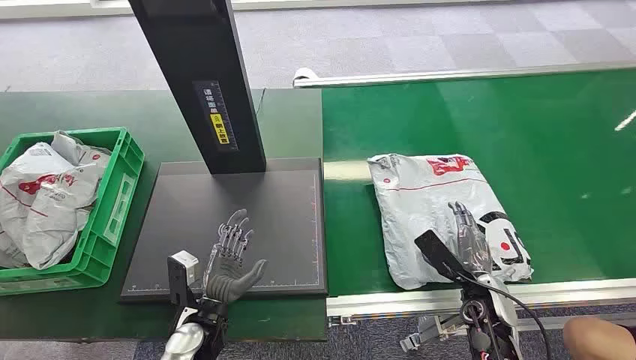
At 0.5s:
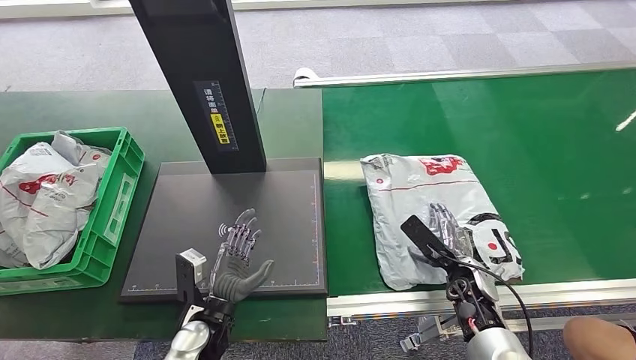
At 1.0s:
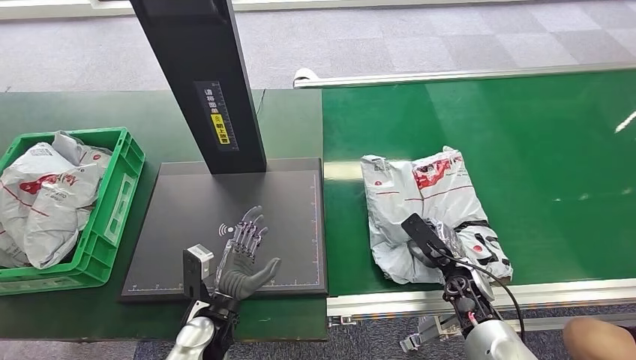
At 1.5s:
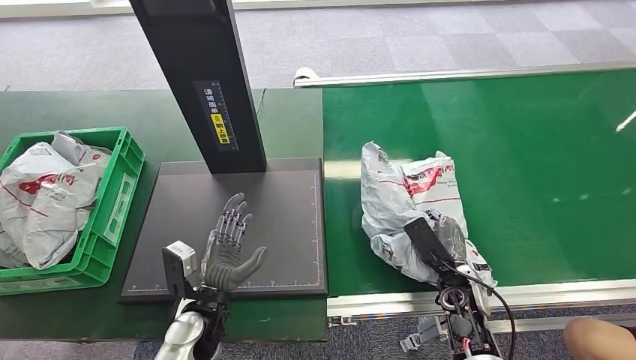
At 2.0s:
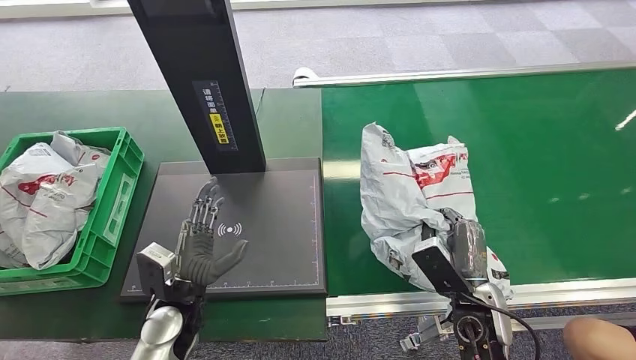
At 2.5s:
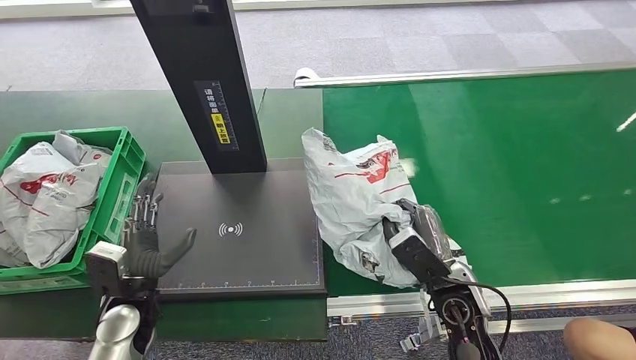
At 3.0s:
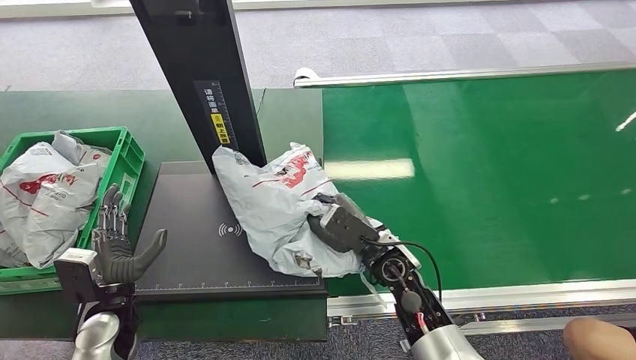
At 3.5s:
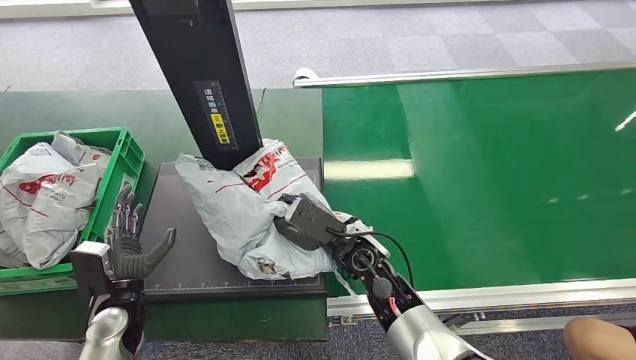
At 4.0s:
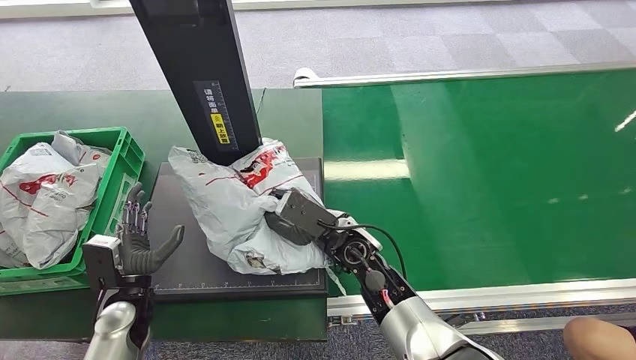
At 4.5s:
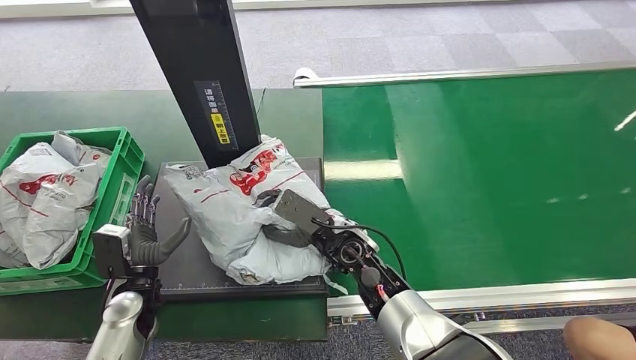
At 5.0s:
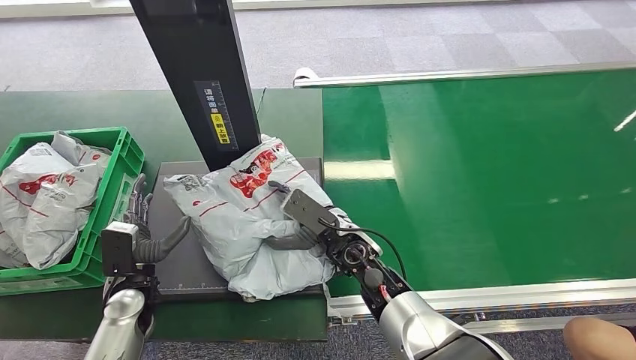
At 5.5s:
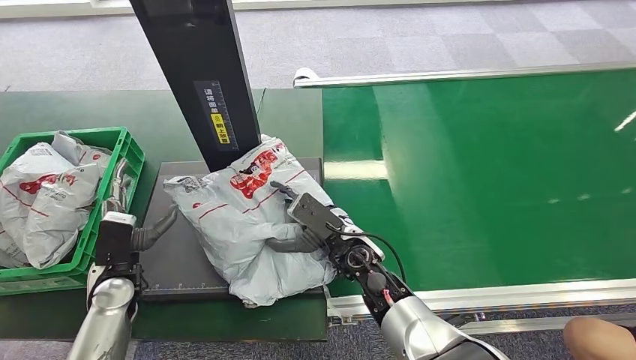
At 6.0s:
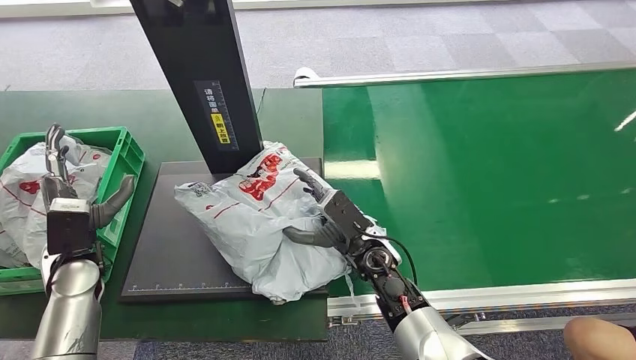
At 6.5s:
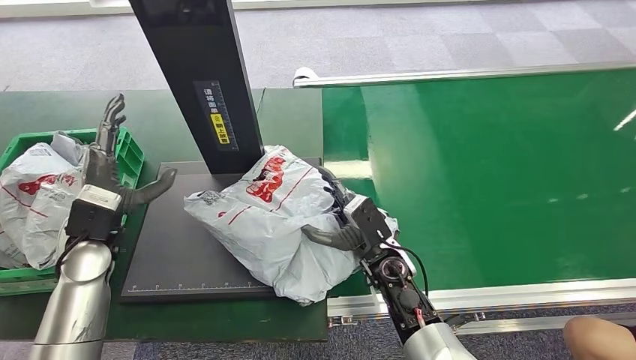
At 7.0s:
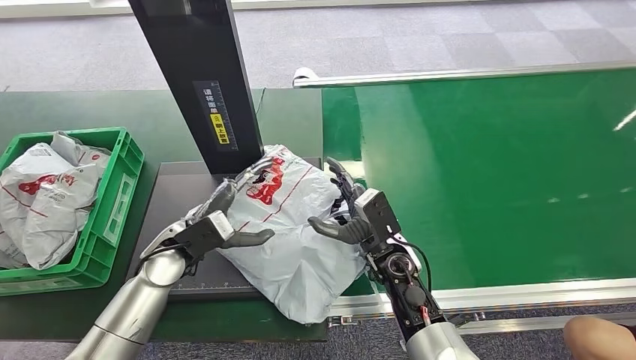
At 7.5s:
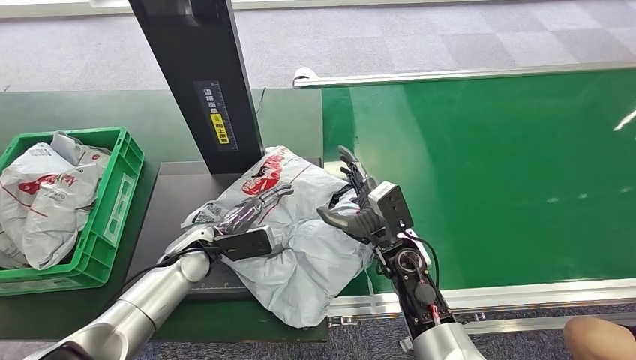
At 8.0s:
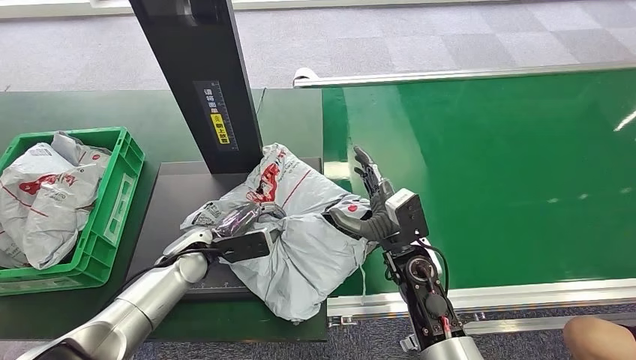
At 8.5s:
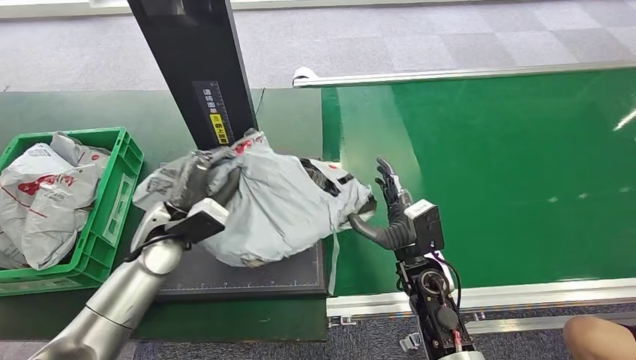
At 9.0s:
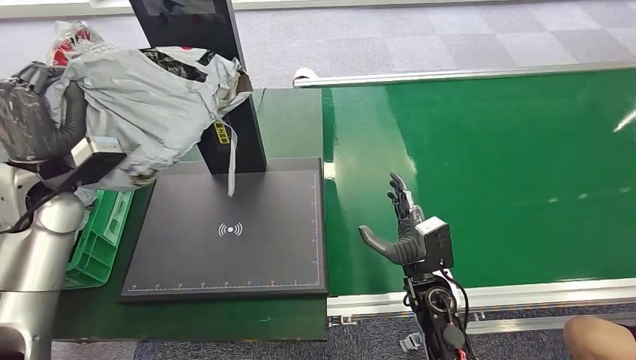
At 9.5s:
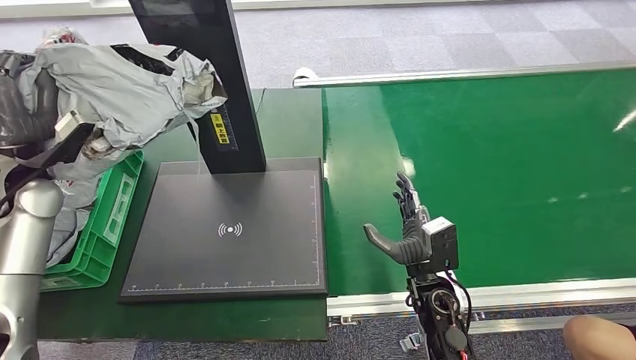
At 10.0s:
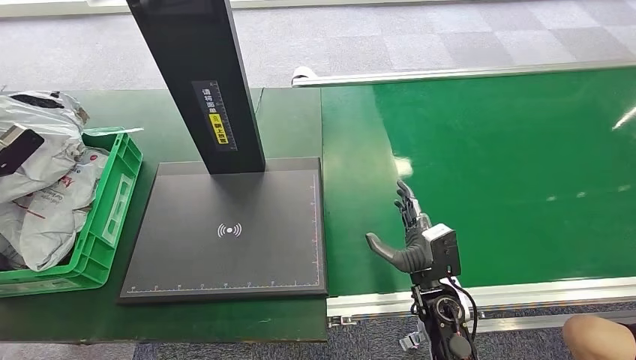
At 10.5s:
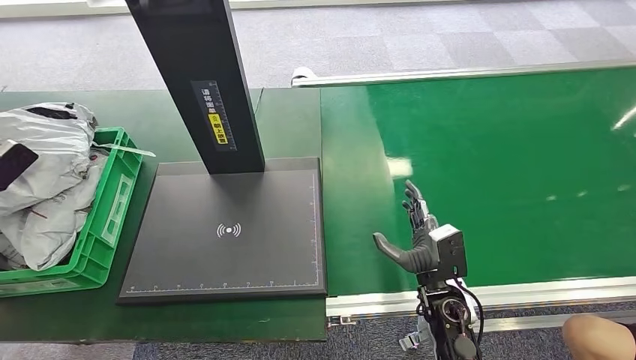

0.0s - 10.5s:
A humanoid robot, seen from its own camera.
Task of the whole recording: Weigh the package on the weighing device and place it in the left basket.
Step, 0.0s - 2.0s: Pick up the package from the conveyor belt.
Step, 2.5s - 6.0s: Place the package onto the inbound machine.
Step, 6.5s - 9.0s: Pick up the package from the inbound machine.
Step, 9.5s - 10.5s: Place the package into the parcel locker.

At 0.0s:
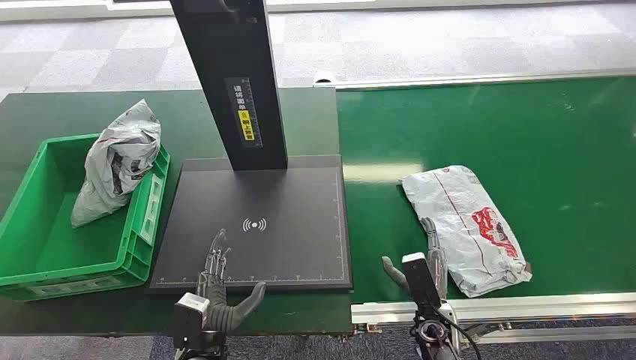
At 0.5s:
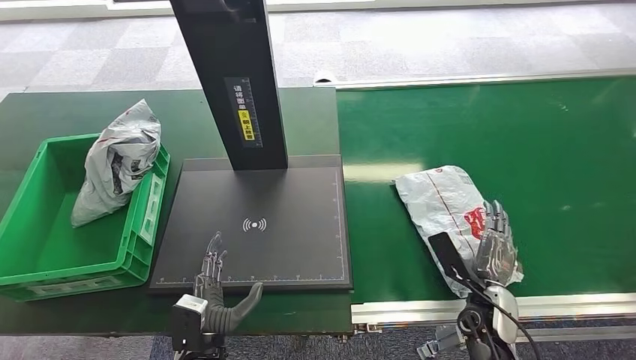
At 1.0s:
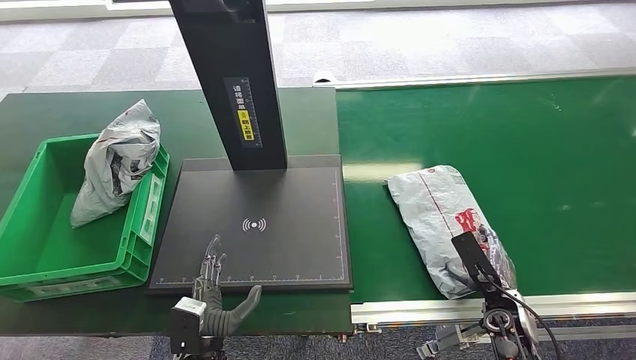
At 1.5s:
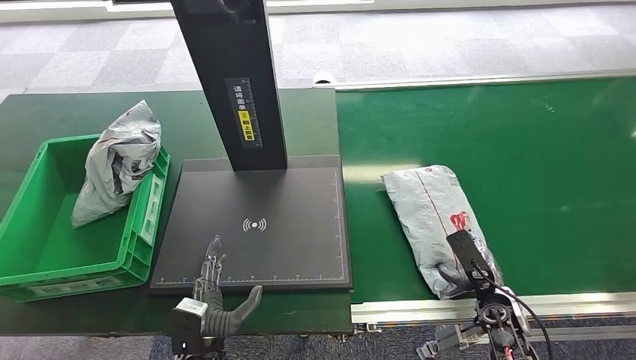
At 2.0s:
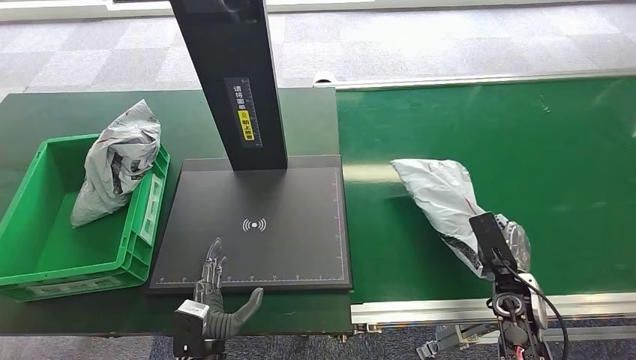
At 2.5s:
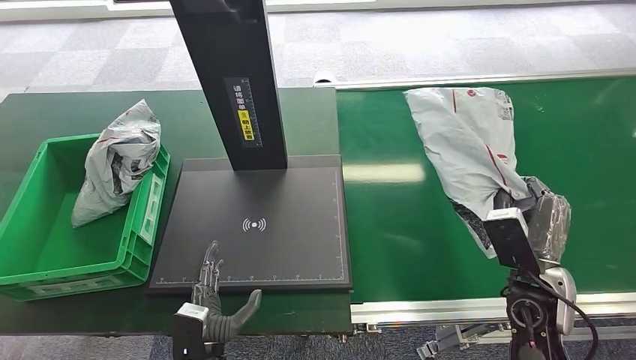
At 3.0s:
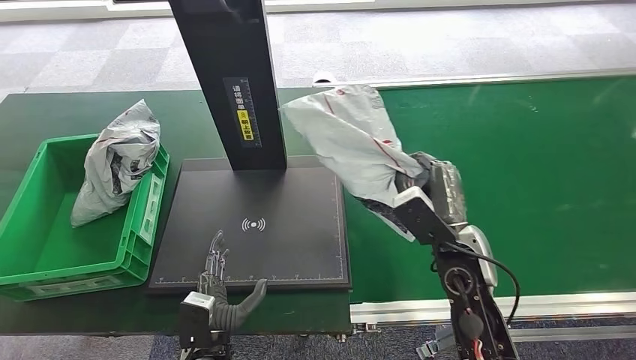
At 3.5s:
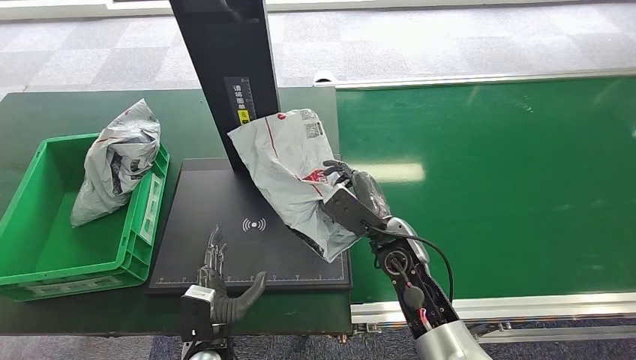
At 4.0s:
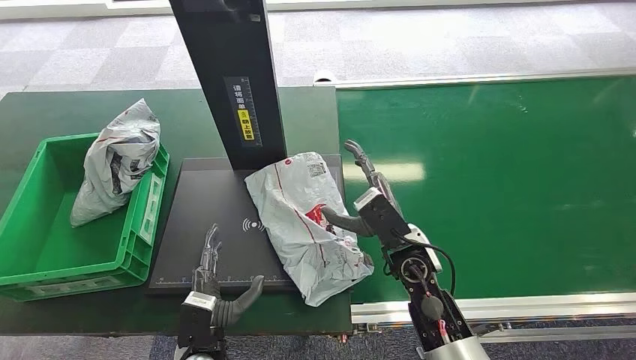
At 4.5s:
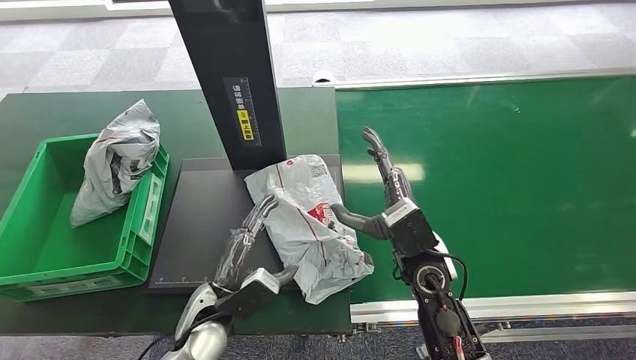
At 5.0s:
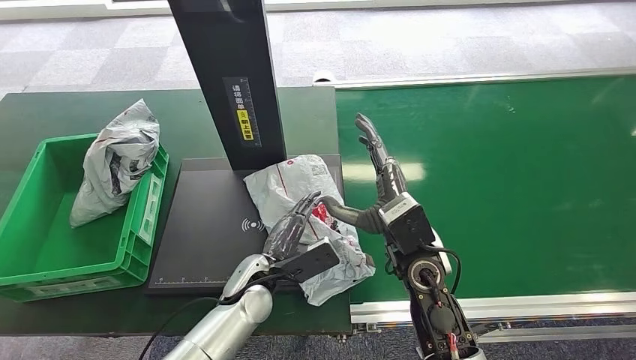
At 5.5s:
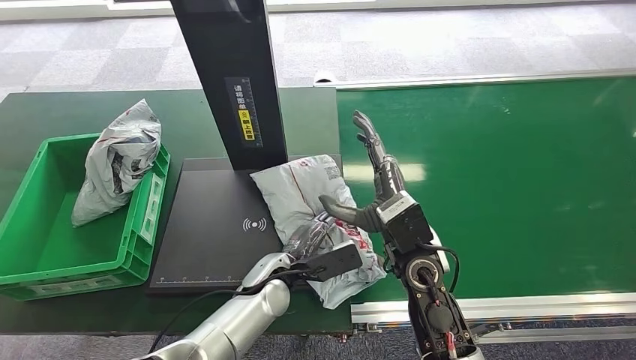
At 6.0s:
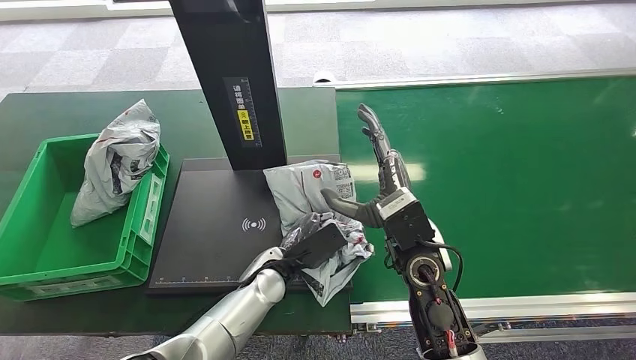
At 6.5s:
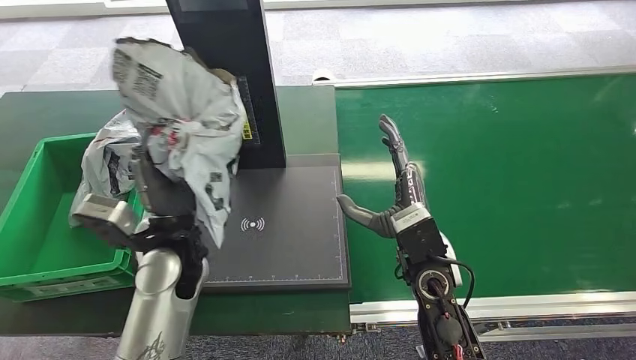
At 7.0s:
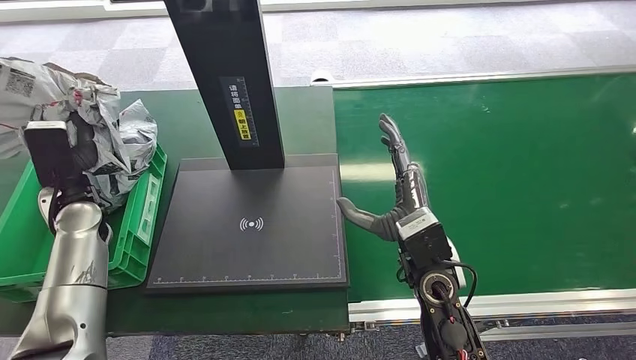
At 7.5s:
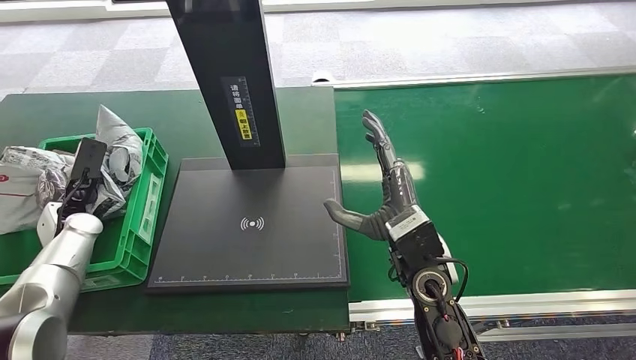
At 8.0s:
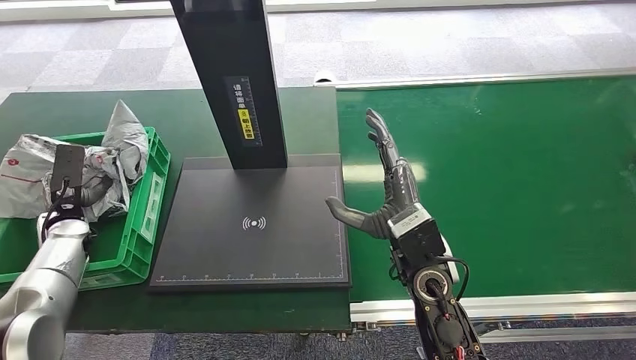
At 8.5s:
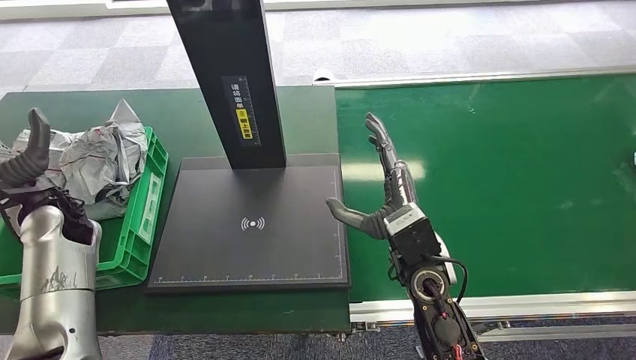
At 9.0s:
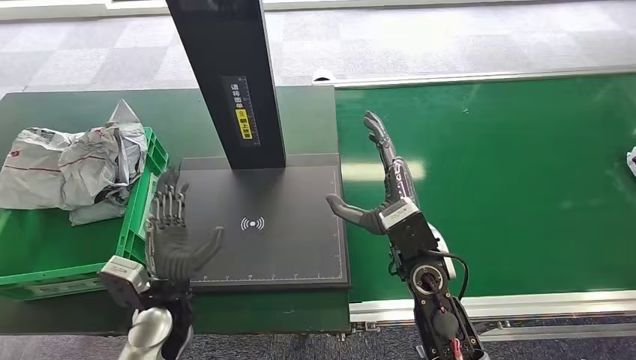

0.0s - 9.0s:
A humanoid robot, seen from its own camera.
Task of the whole recording: Weigh the package on the weighing device and place it in the left basket.
Step, 0.0s - 3.0s: Pick up the package from the conveyor belt.
Step, 3.5s - 5.5s: Place the package onto the inbound machine.
Step, 6.0s - 6.5s: Pick up the package from the inbound machine.
Step, 7.0s - 8.5s: Place the package into the parcel locker.
2.0s - 4.5s: The left hand travels forward and upward by about 10 cm. The right hand travels to the left and upward by about 25 cm.
